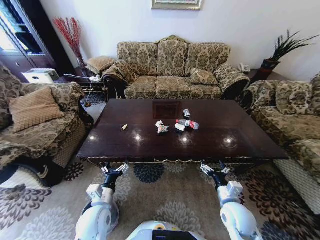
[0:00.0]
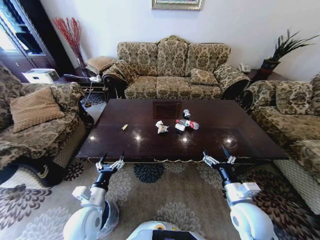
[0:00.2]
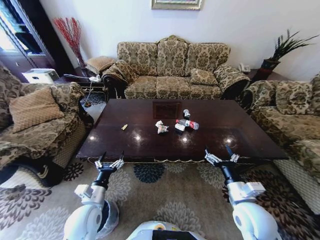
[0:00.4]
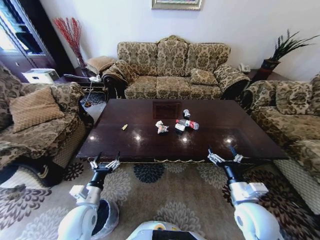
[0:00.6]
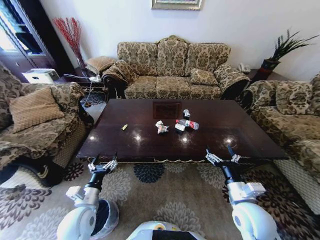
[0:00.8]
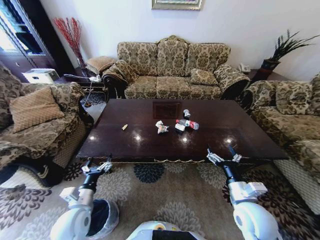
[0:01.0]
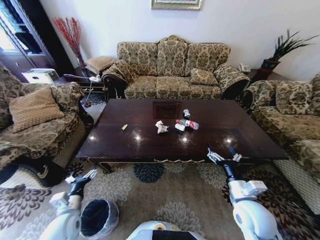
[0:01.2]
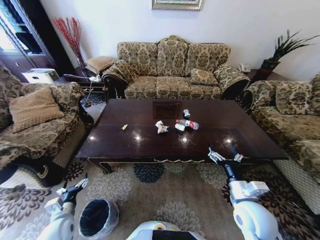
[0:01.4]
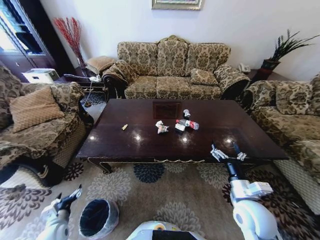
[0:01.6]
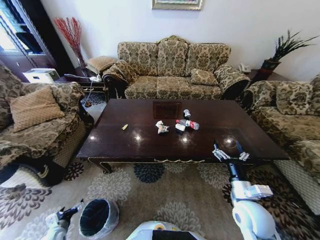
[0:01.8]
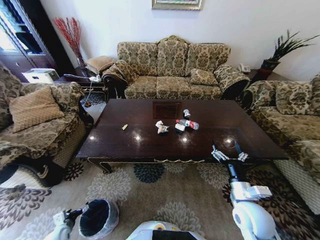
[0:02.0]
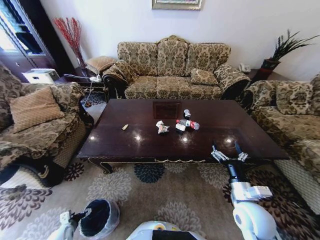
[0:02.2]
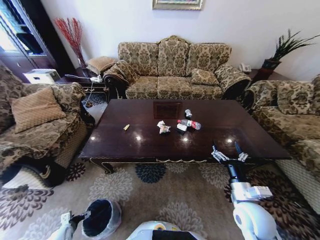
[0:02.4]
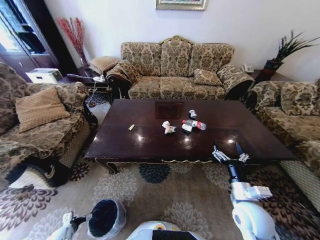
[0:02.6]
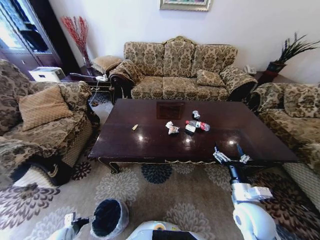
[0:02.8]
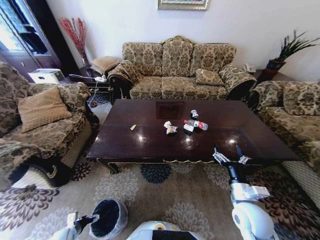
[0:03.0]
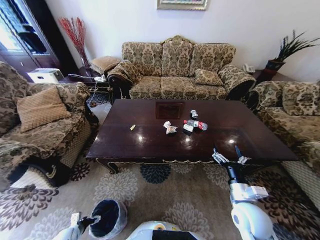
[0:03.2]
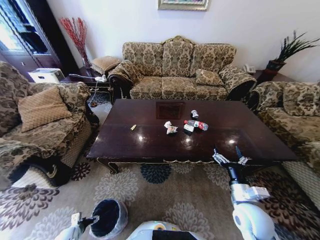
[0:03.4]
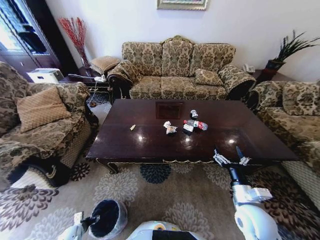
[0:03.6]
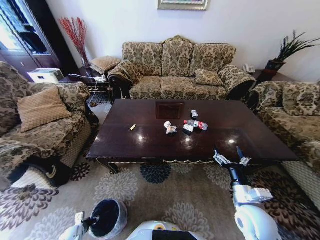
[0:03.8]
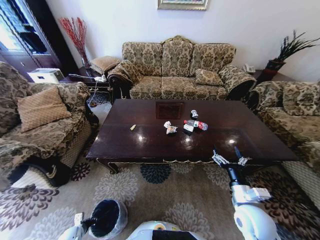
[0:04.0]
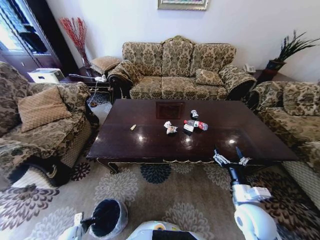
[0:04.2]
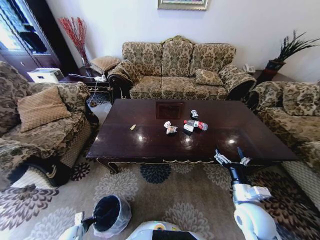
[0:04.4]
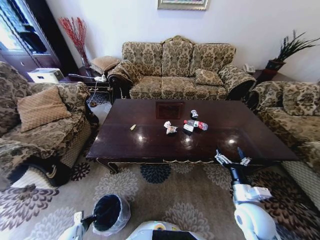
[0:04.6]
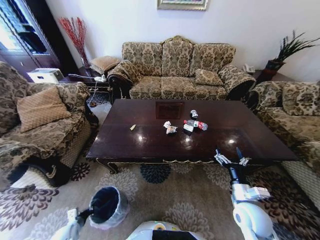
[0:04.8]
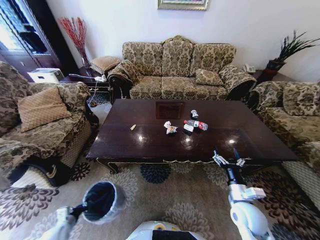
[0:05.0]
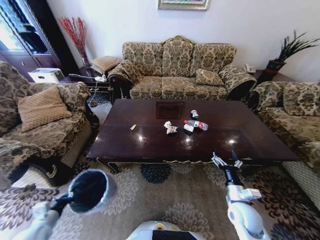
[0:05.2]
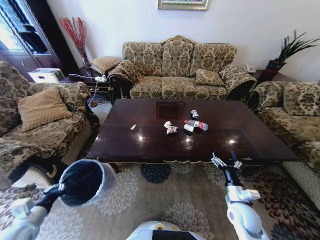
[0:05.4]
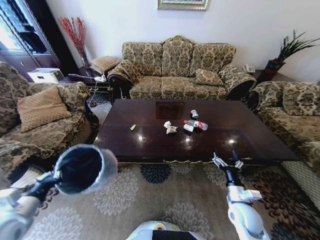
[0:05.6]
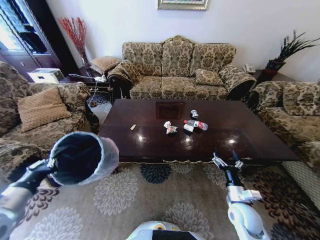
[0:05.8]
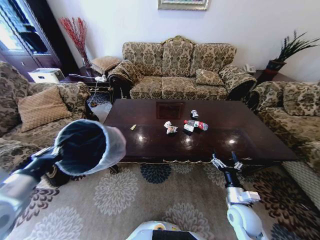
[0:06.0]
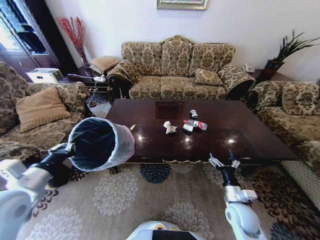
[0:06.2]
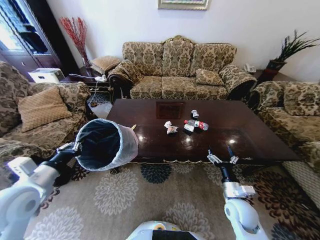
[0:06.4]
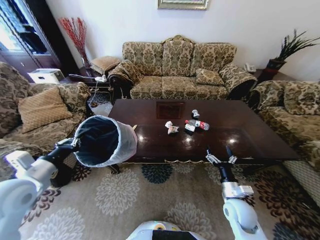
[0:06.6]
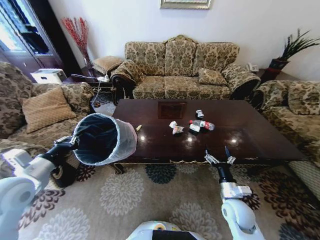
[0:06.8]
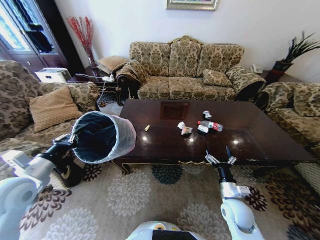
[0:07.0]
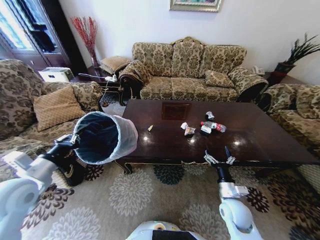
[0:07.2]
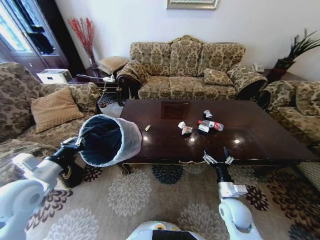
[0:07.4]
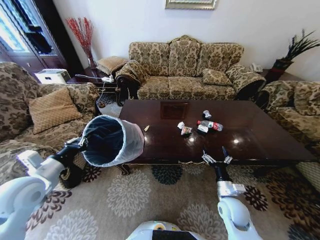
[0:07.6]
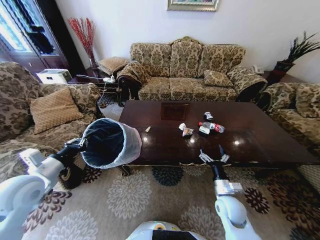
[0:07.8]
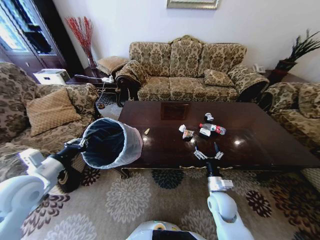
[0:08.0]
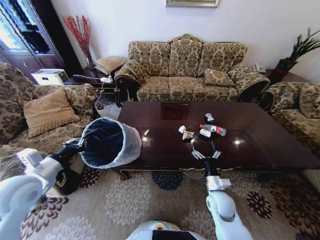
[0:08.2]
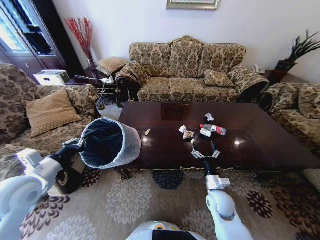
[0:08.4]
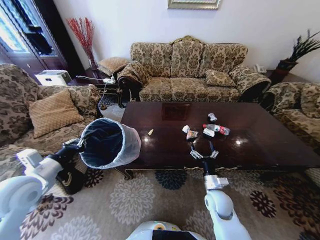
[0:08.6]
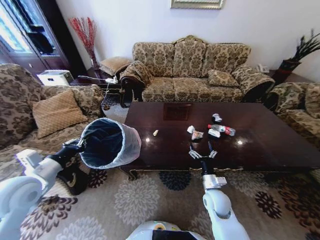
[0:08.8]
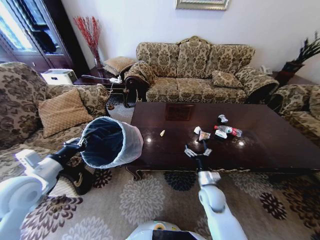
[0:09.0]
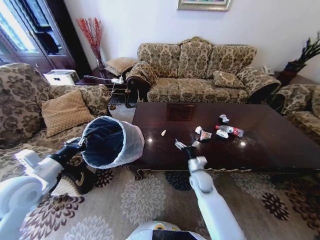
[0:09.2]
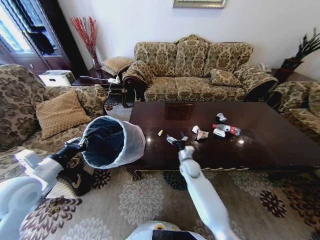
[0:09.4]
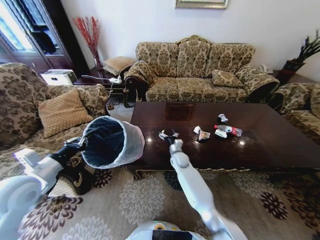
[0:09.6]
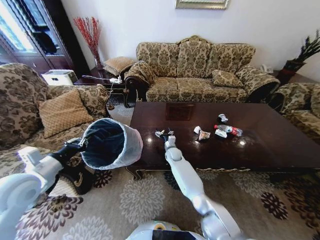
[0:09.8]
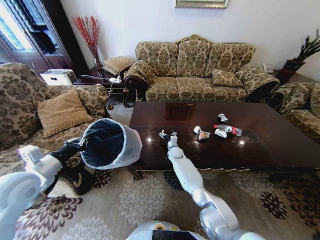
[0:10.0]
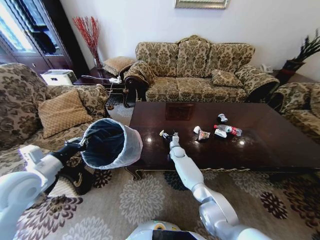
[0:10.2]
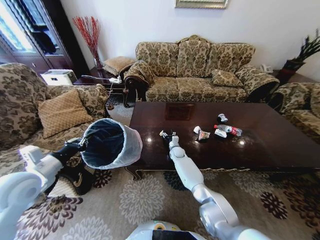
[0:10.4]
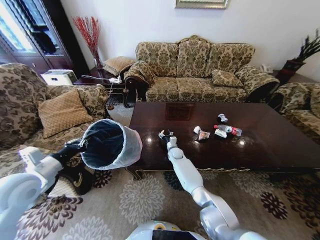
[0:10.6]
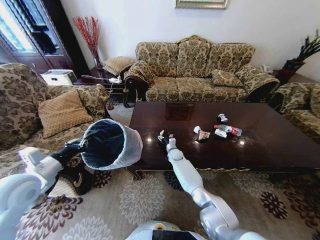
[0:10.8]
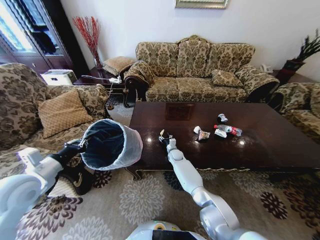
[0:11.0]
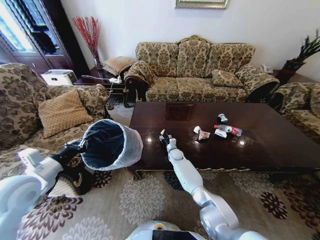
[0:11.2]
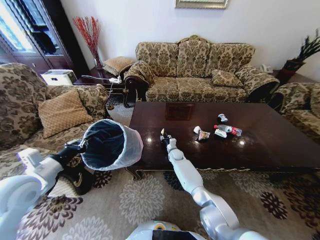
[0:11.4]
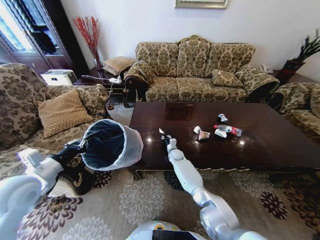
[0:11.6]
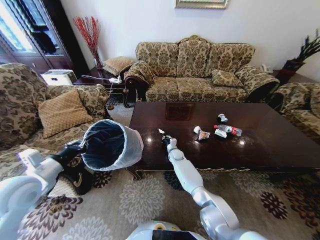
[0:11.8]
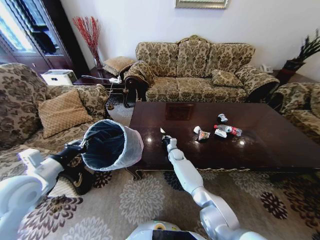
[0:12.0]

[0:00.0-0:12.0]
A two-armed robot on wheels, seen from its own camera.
Task of the whole recording: Move to the front of the table and place the trash on the table into the trash bin.
0:01.6 to 0:03.0: The left gripper travels downward by roughly 15 cm.
0:03.0 to 0:04.4: The left gripper is displaced downward by about 5 cm, and closes.
0:04.4 to 0:06.0: The right gripper travels downward by roughly 5 cm. Meanwhile the left gripper moves upward, some 50 cm.
0:06.0 to 0:07.6: The left gripper goes some 5 cm forward.
0:07.6 to 0:09.0: The right gripper shifts some 10 cm to the left and forward.
0:09.0 to 0:10.4: The right gripper travels forward and to the left by about 30 cm.
0:10.4 to 0:12.0: The right gripper closes its fingers.

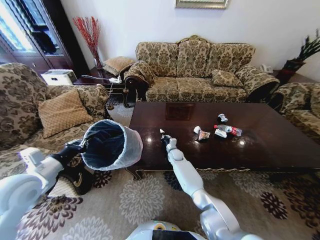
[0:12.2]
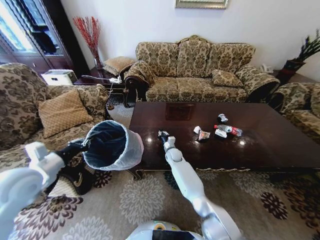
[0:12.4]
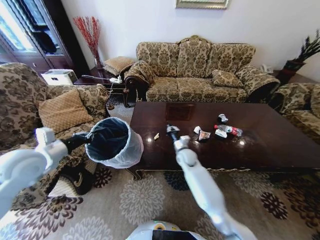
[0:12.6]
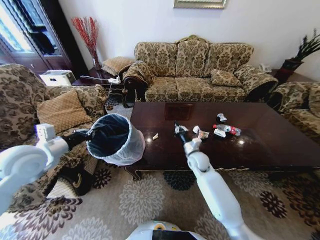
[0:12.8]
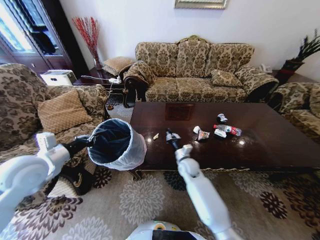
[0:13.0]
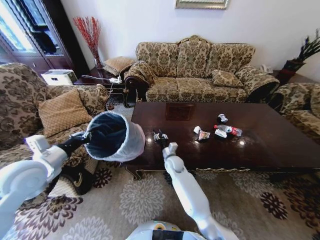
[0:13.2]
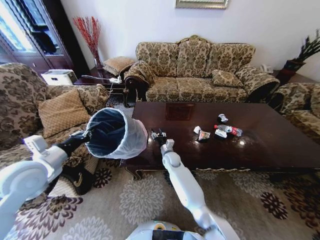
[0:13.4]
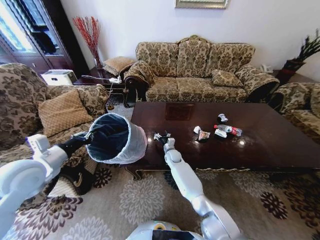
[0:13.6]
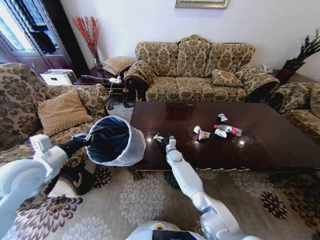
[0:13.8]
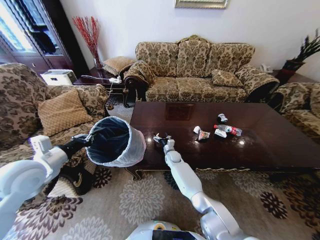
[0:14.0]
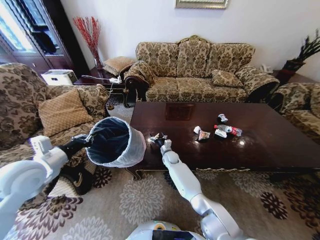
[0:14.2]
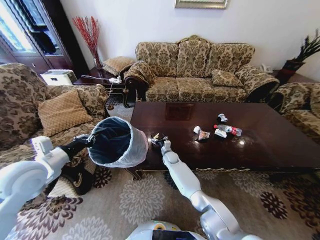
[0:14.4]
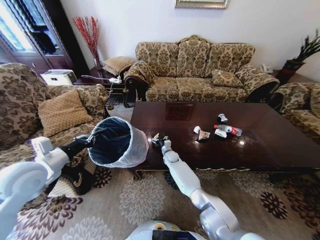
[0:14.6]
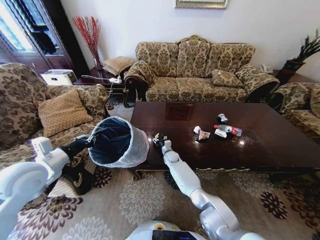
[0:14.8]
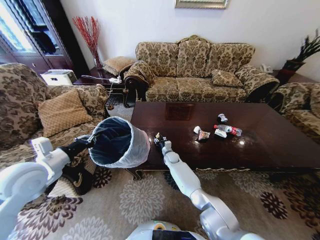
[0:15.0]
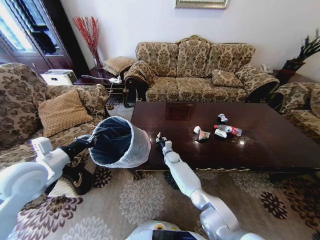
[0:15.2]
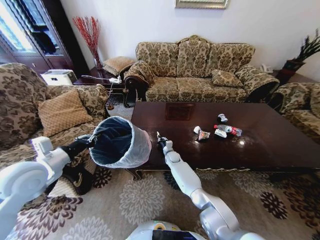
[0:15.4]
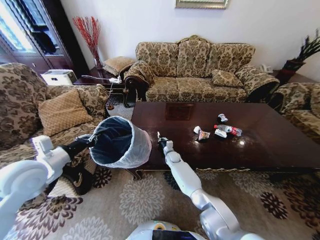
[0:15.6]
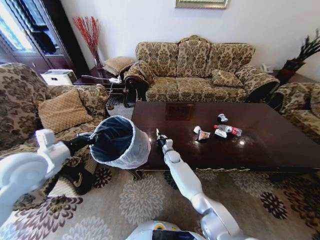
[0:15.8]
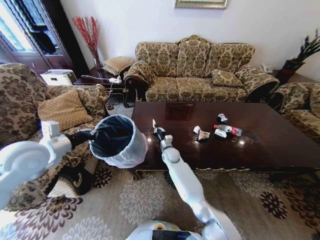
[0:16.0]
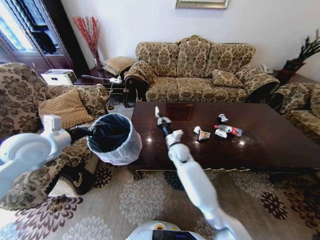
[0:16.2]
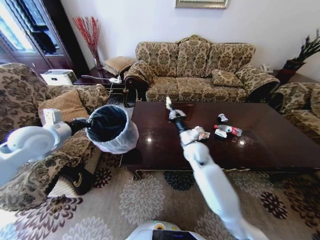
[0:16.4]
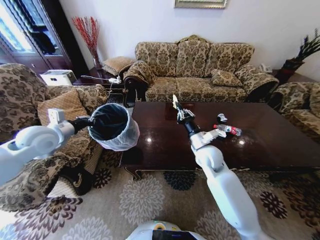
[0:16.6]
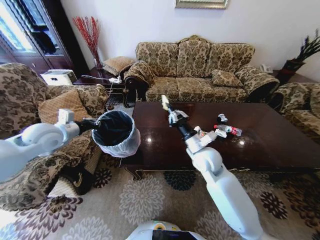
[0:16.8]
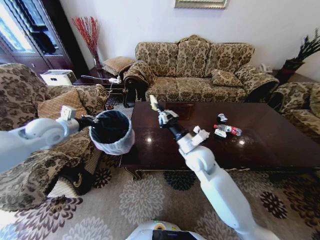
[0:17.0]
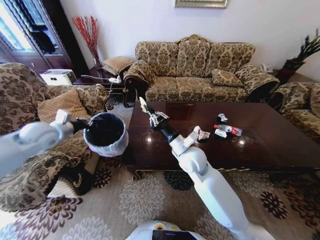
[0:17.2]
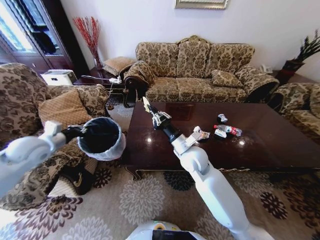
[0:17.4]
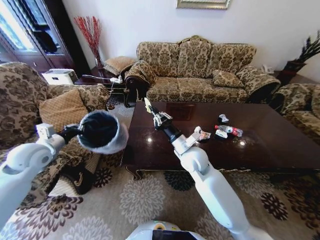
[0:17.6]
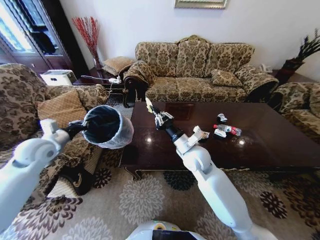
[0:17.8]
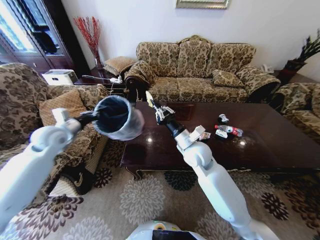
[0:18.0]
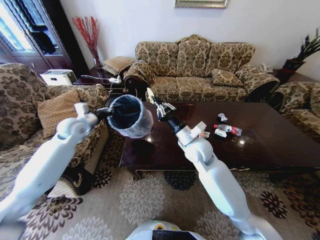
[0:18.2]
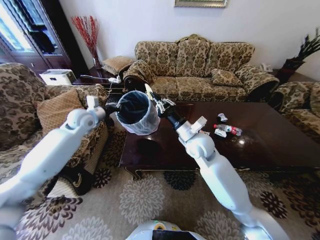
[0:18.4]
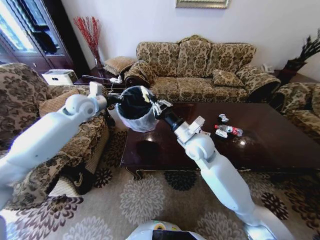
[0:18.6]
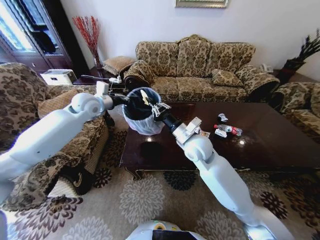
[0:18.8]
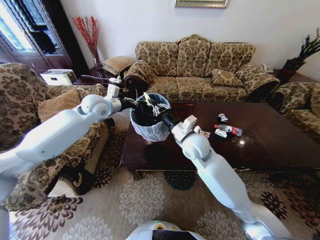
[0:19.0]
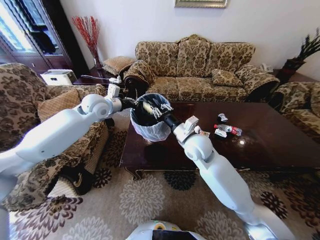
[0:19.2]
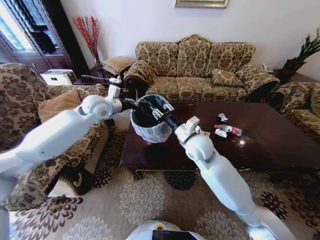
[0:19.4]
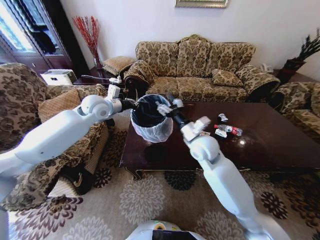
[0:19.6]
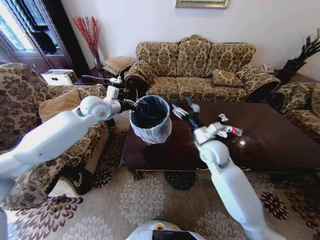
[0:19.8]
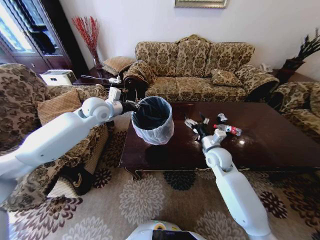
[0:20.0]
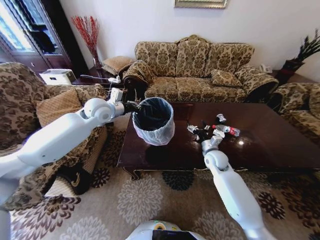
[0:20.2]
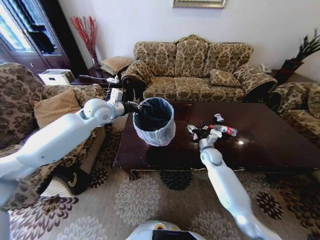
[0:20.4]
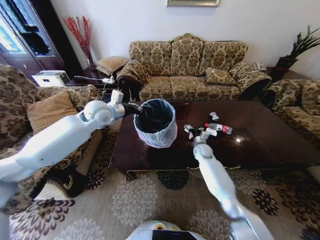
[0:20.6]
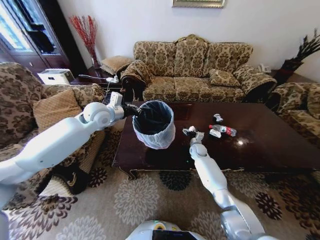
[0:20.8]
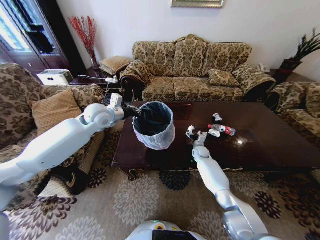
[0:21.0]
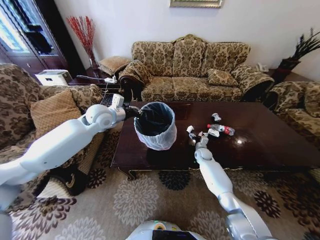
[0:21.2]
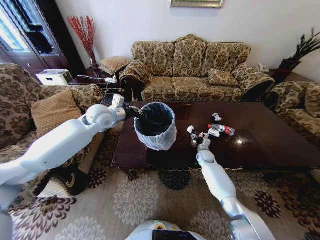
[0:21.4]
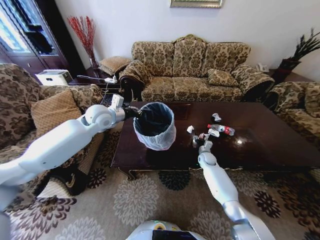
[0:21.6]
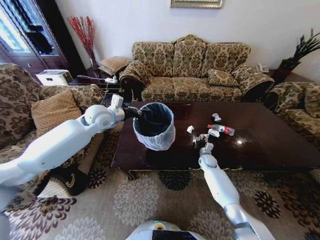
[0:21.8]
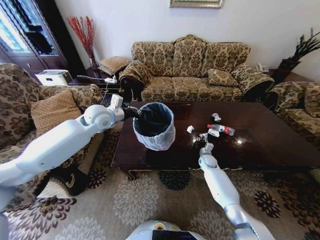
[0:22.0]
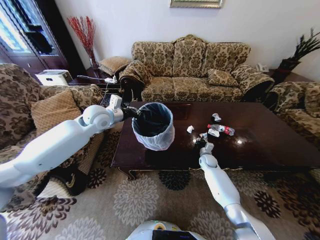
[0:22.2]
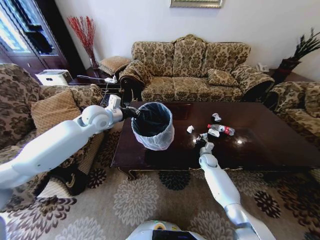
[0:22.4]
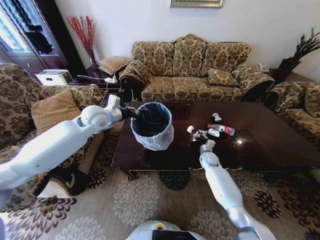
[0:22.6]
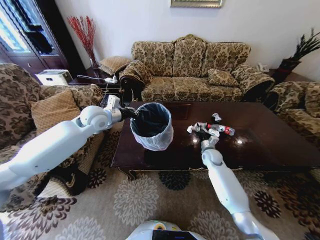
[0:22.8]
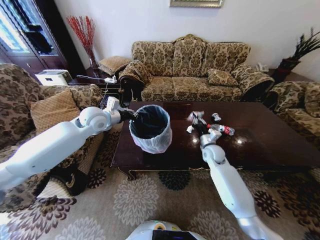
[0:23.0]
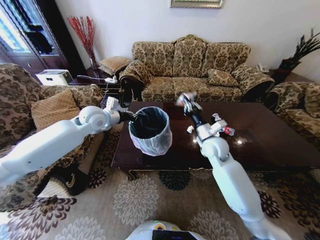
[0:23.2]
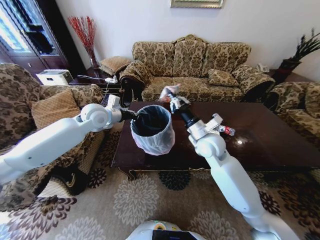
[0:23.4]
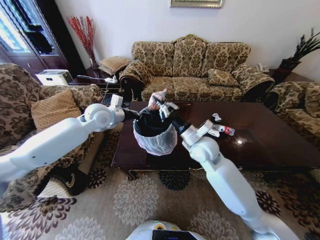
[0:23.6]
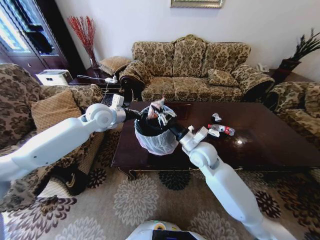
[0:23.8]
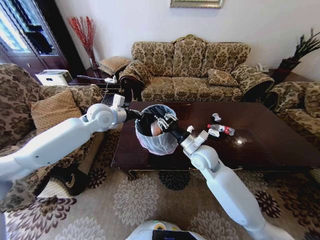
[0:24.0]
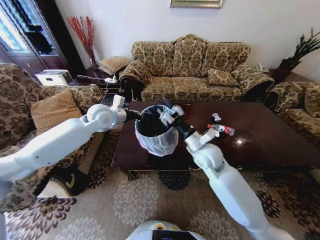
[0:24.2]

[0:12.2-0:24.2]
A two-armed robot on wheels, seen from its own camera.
Task of the whole recording: Move to the front of the table and place the trash on the table into the trash bin.
0:12.2 to 0:13.8: The right gripper travels to the right and back again, approximately 10 cm each way, and opens up.
0:13.8 to 0:15.2: The right gripper closes its fingers.
0:15.2 to 0:16.6: The left gripper moves forward, approximately 10 cm. Meanwhile the right gripper travels upward, backward and to the right by roughly 30 cm.
0:16.6 to 0:18.2: The right gripper is displaced to the left by some 5 cm. Meanwhile the left gripper moves forward and backward over some 15 cm, changing direction 2 times.
0:18.2 to 0:19.8: The right gripper heads to the right, covering about 5 cm, and opens its fingers. The left gripper is displaced to the right and upward by some 15 cm.
0:19.8 to 0:21.2: The right gripper is displaced downward and forward by some 25 cm.
0:21.2 to 0:22.6: The right gripper closes up.
0:22.6 to 0:24.2: The right gripper is displaced upward, backward and to the left by approximately 30 cm, and opens up.
